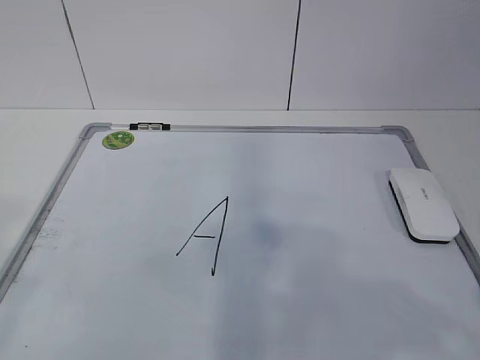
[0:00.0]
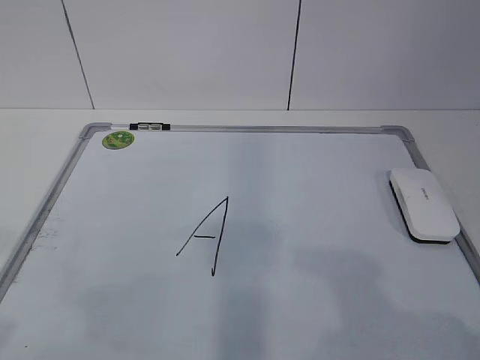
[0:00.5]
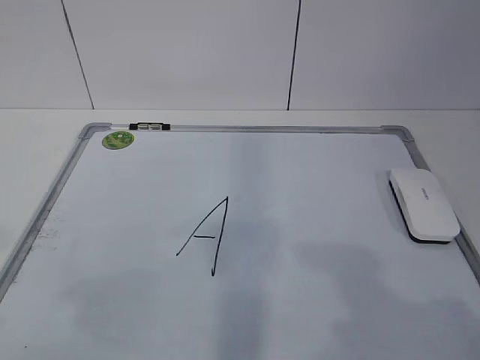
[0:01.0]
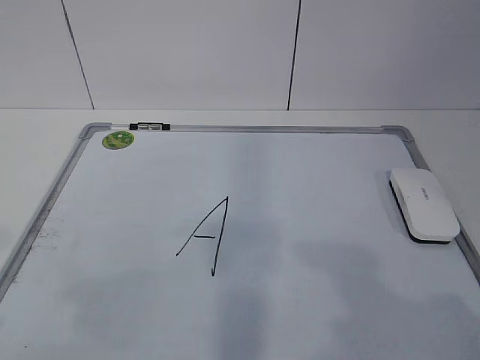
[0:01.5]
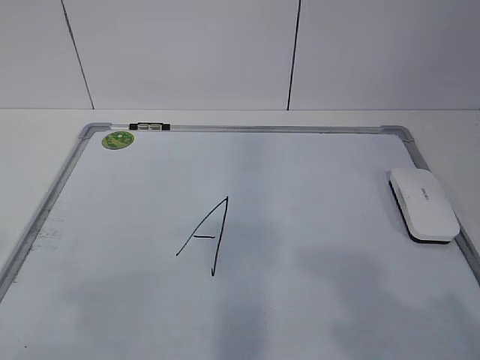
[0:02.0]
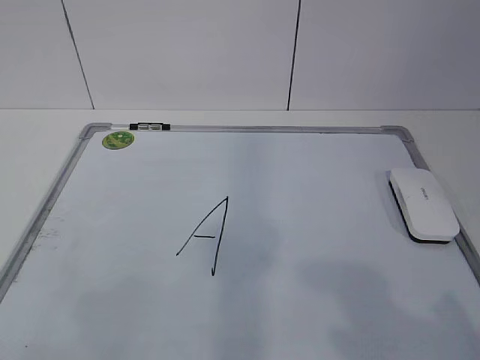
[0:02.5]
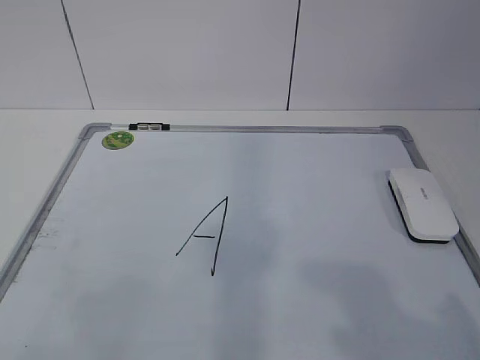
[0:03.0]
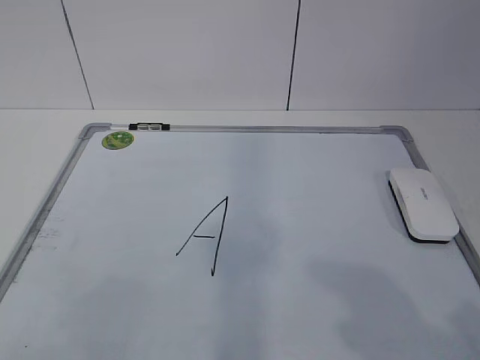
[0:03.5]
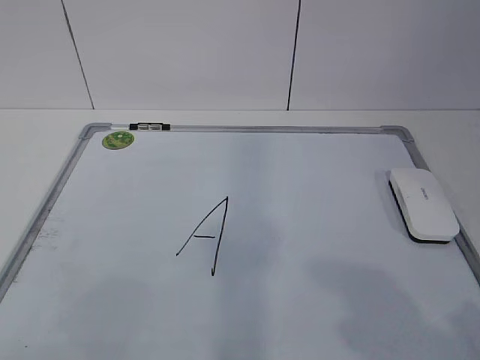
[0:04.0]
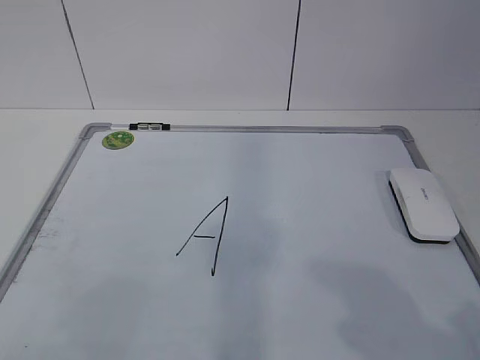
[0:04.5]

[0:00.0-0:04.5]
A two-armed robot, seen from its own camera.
Task of the whole recording: pick up the eraser on the blackboard and erase the letter "a".
0:00.0 to 0:02.0: The right gripper shifts by approximately 5 cm.

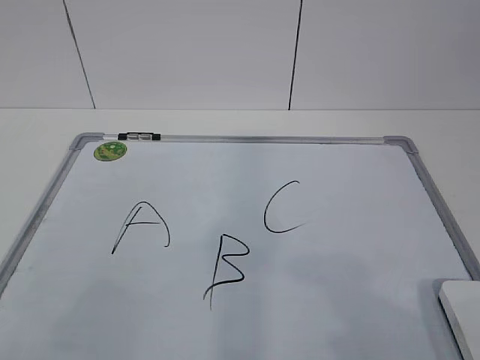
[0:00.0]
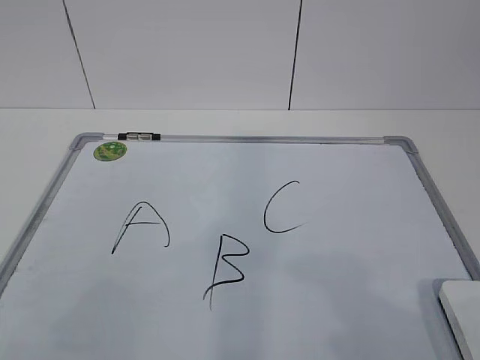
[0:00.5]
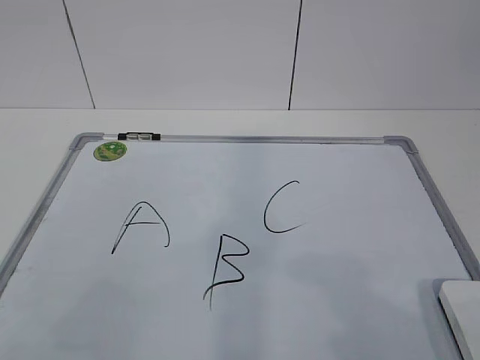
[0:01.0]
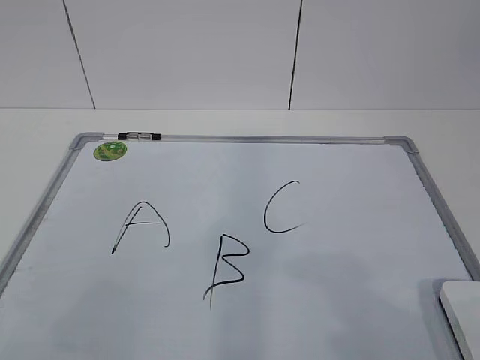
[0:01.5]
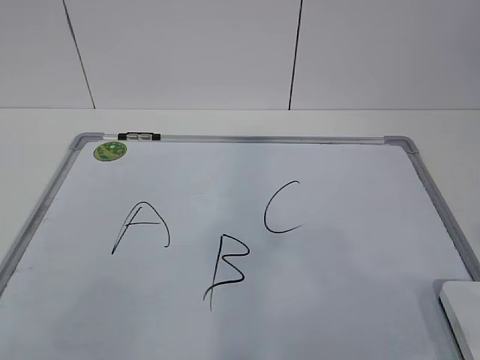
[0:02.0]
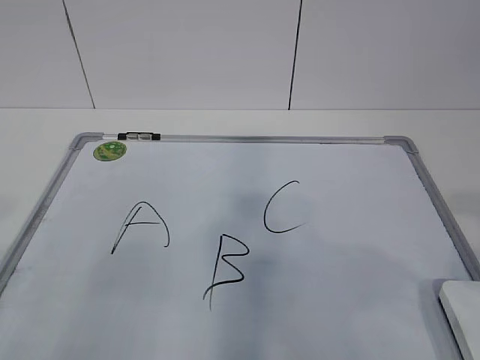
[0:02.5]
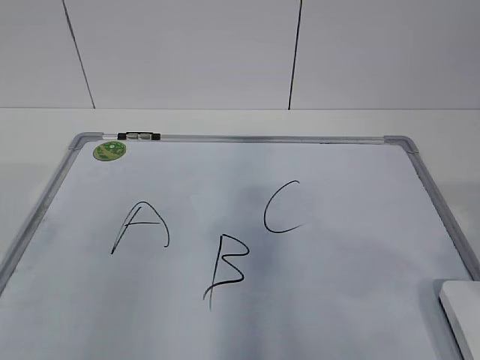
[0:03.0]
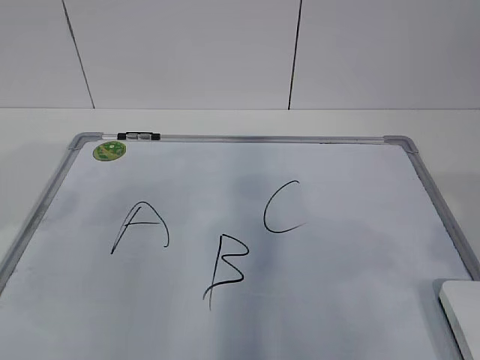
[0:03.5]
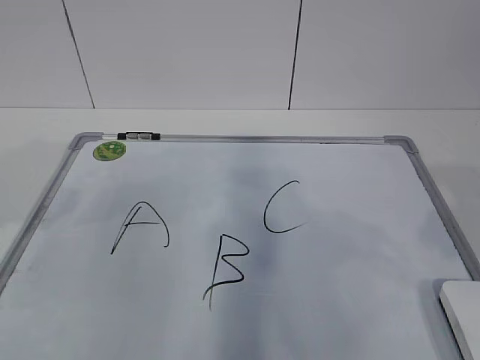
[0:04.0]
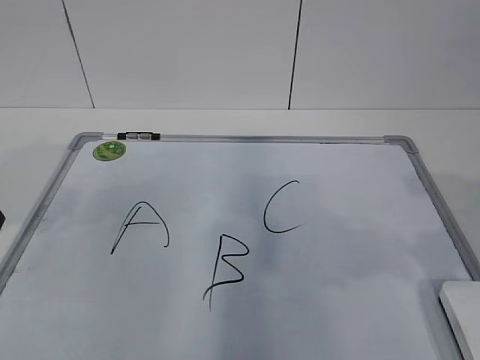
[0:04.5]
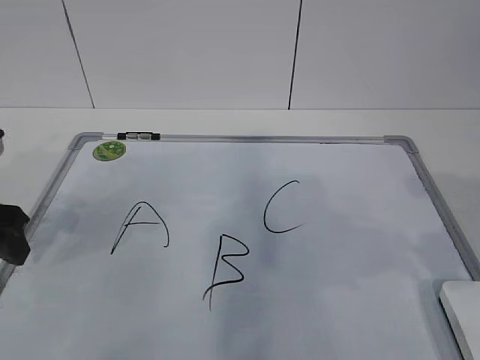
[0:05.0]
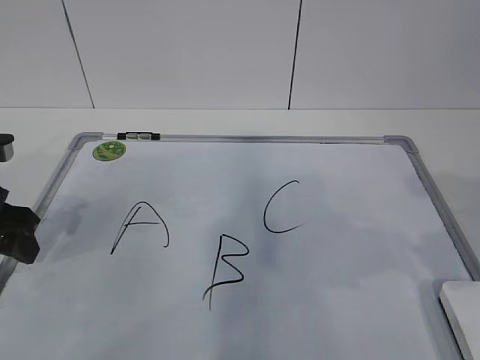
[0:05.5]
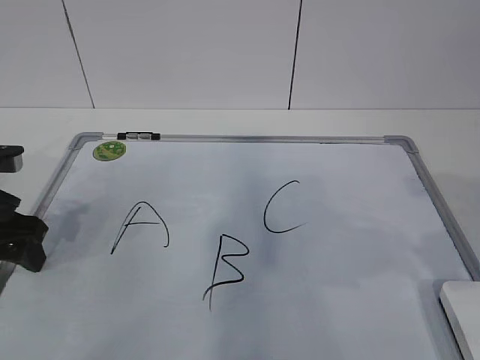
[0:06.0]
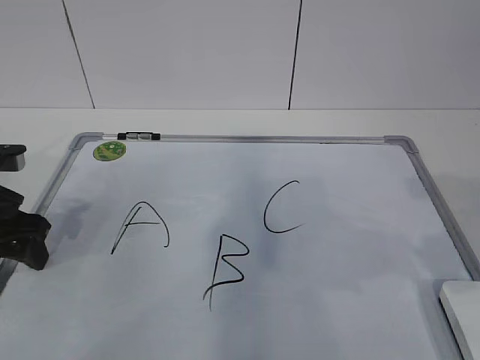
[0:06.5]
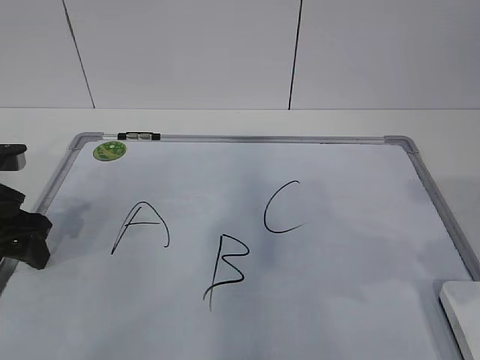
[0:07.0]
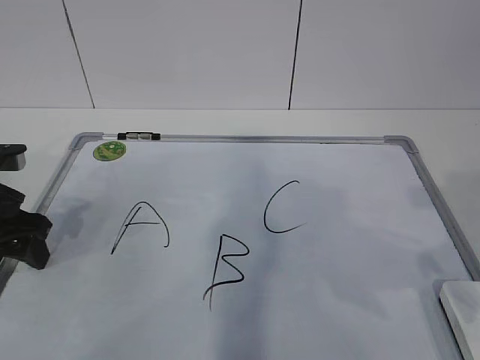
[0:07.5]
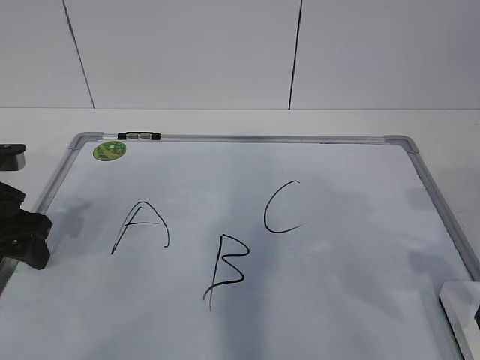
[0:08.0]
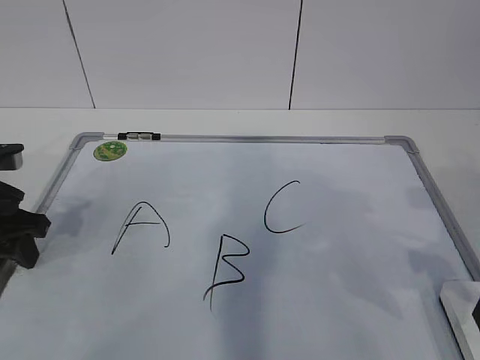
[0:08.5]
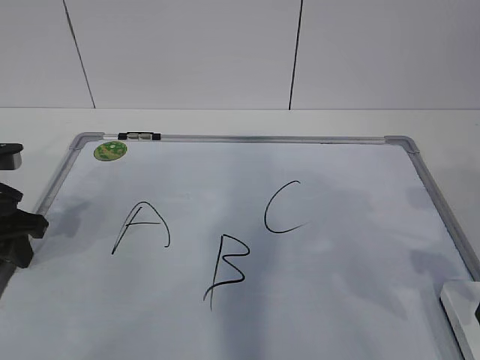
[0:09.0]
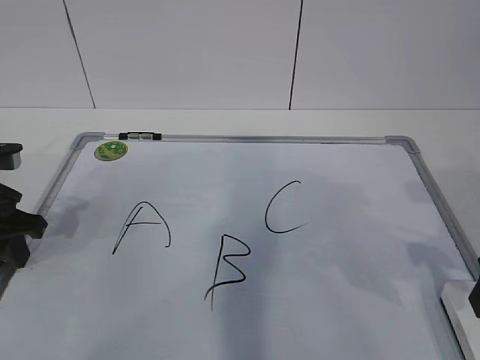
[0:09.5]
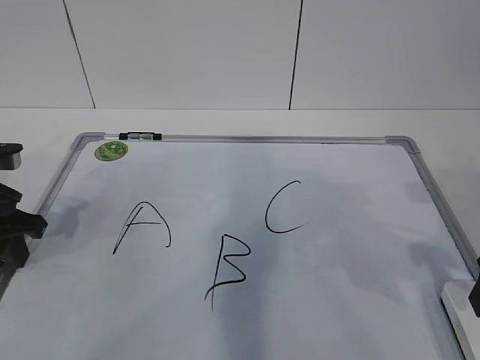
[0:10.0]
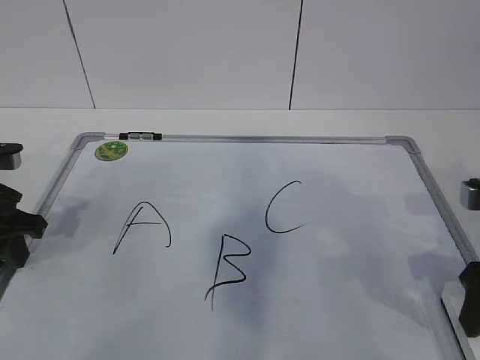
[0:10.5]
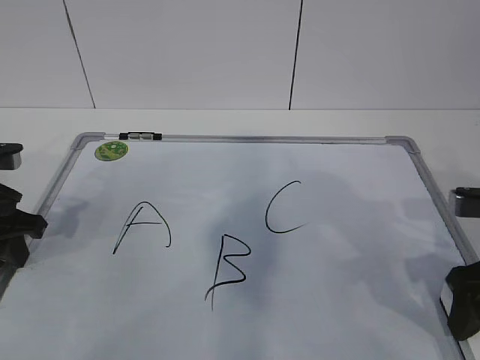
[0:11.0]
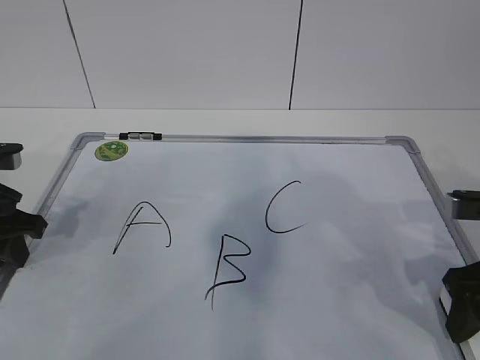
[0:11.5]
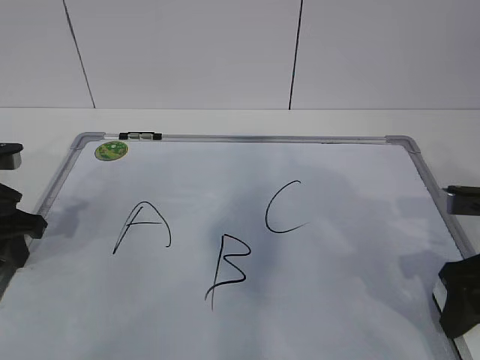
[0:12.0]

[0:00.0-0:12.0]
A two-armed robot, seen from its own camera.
Task of the whole recording: pick up the eraser on the blackboard and erase the letter "B".
Step, 0:00.0 to 0:07.5: Hold the drawing board steady with your left hand.
0:02.0 to 0:04.0: The left gripper is displaced forward by some 25 cm. The right gripper travels forward by approximately 10 cm, and closes.
0:04.0 to 0:06.0: The left gripper moves downward and forward, roughly 10 cm.
0:06.0 to 0:08.0: The right gripper travels downward by some 5 cm.
0:08.0 to 0:10.0: The left gripper closes.
0:10.0 to 0:12.0: The right gripper goes approximately 5 cm downward, and closes.

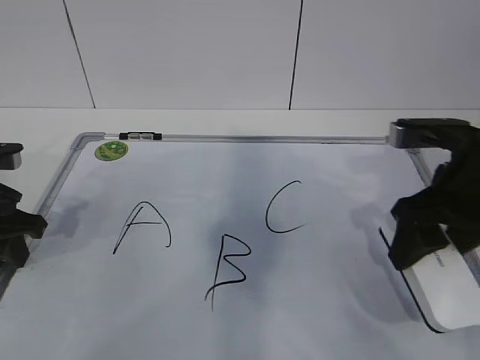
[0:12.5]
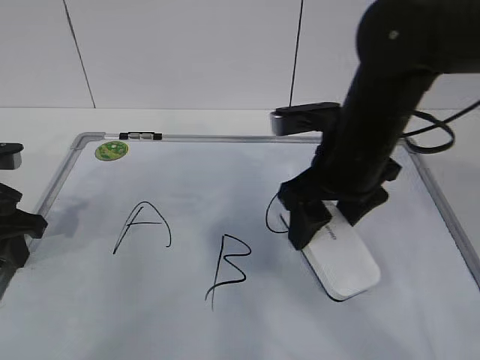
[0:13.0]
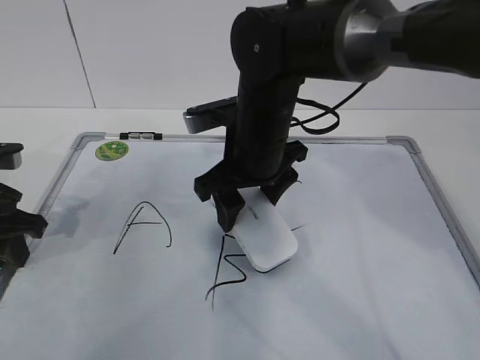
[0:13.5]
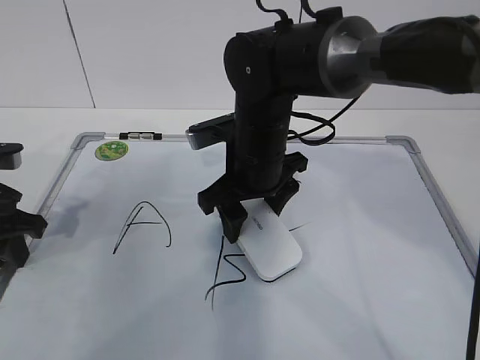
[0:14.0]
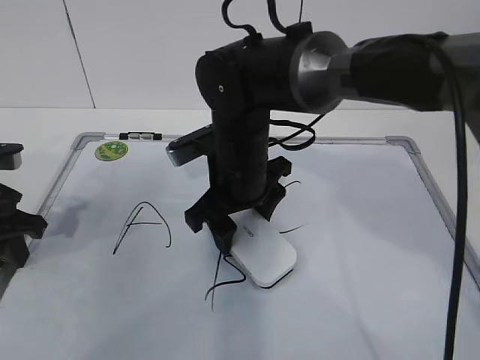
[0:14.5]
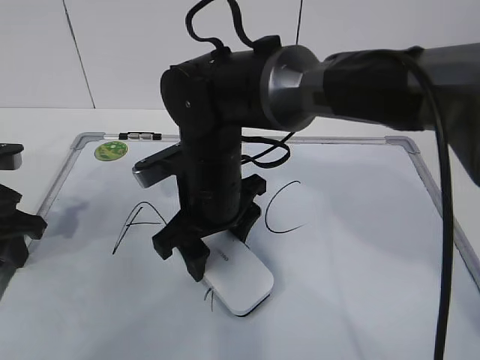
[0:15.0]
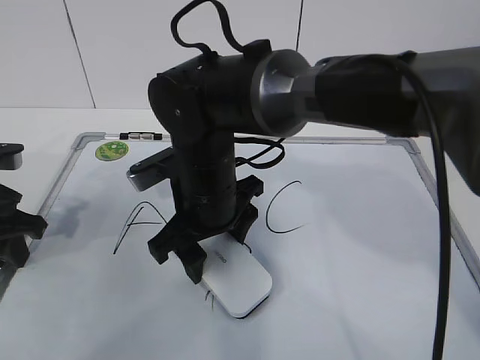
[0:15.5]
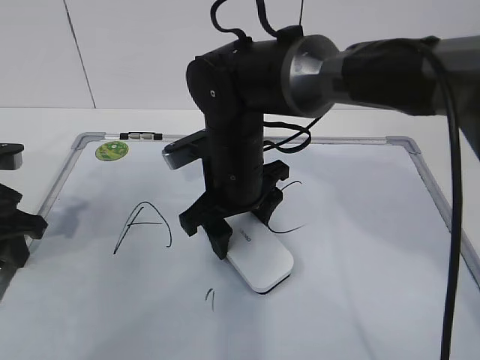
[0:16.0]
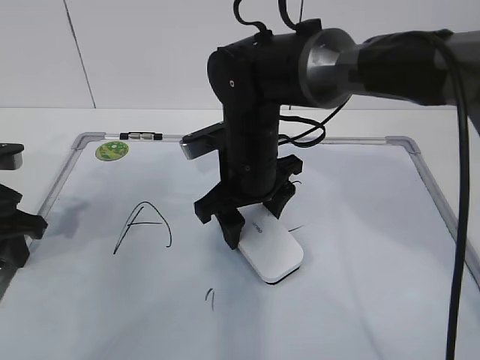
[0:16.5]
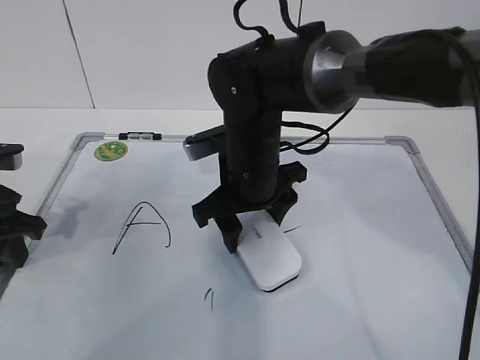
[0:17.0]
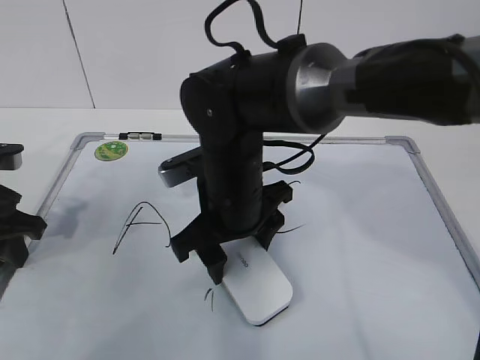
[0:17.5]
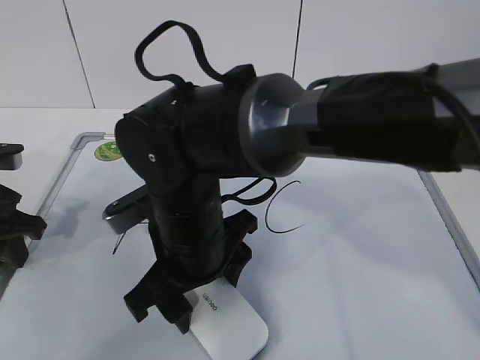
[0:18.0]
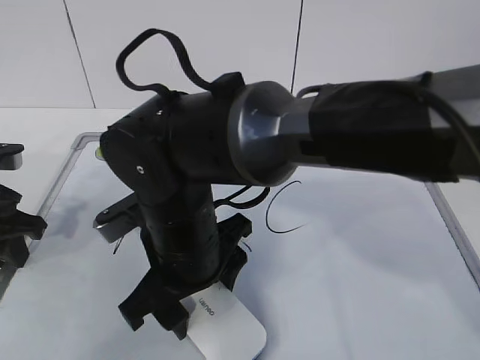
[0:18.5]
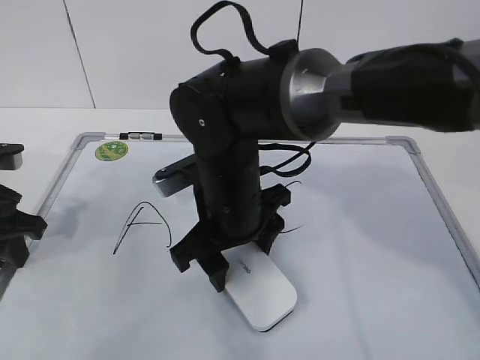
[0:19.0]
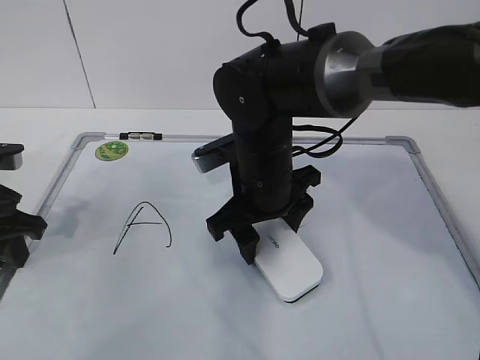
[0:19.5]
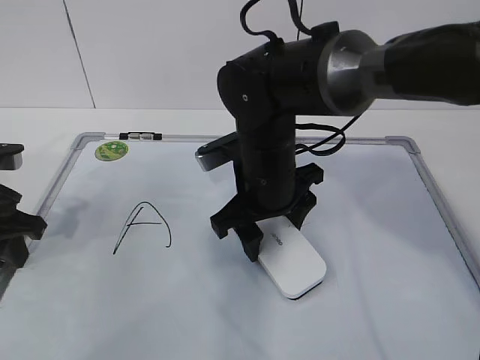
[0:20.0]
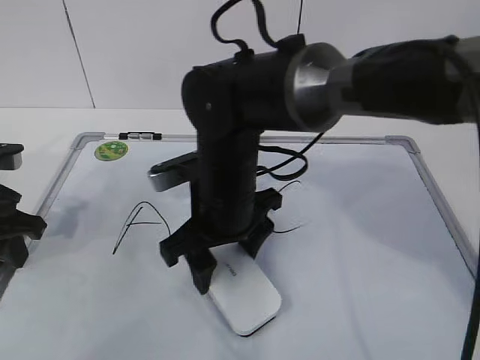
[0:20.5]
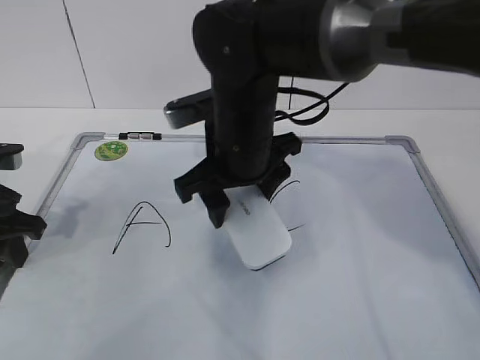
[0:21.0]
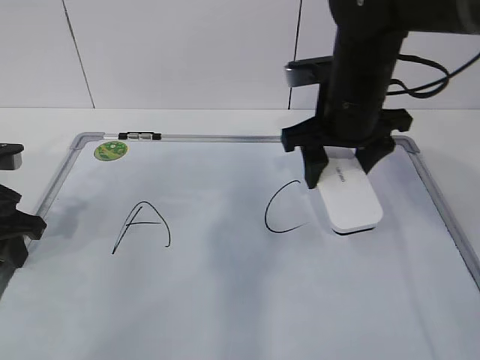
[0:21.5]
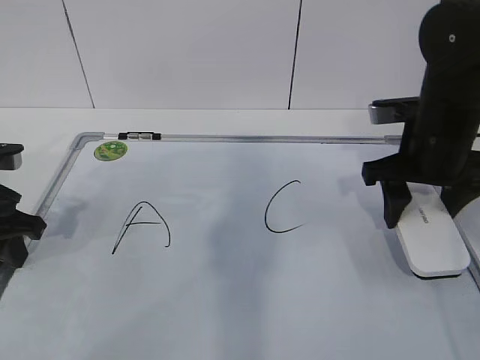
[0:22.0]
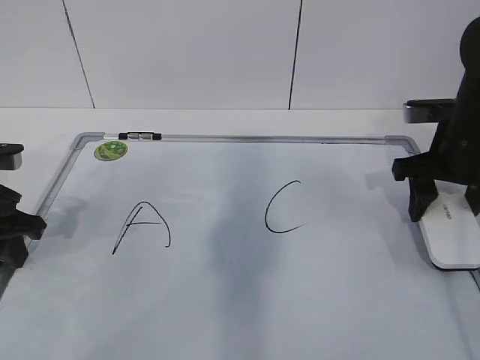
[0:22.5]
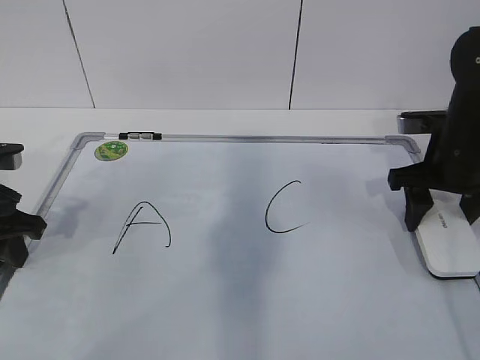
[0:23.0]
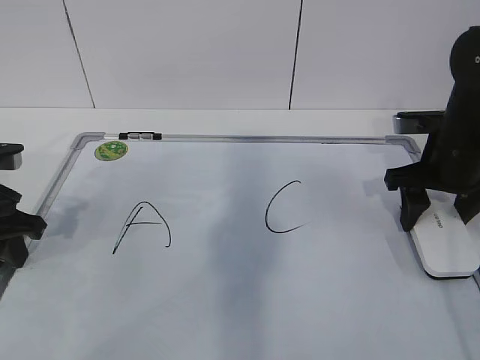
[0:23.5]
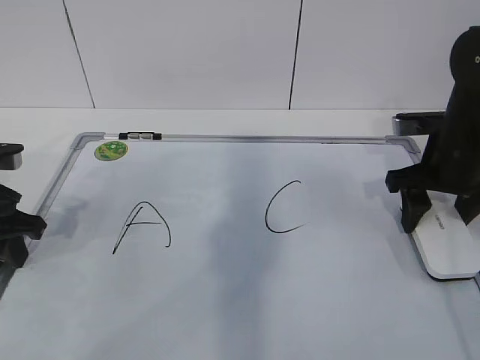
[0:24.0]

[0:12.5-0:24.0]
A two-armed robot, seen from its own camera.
Task of the whole recording: pick up the eraser on the blackboard and erase the letter "B".
Step, 0:12.5 to 0:17.0: Erase the letter B with your right hand.
Step, 0:17.5 to 0:20.0: Put down the eraser with your right hand.
0:12.5 to 0:14.5: The right gripper travels to the left by some 20 cm.
0:14.5 to 0:16.5: The grippers stay close to where they were, moving slightly.
0:16.5 to 0:18.5: The right gripper shifts roughly 15 cm backward and to the left.
0:18.5 to 0:20.0: The right gripper moves forward and to the right, about 10 cm.
0:20.0 to 0:22.0: The right gripper travels to the right by roughly 15 cm.
0:22.0 to 0:24.0: The right gripper changes place by about 5 cm.
